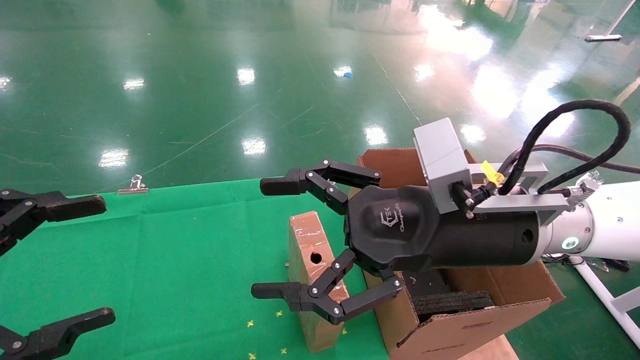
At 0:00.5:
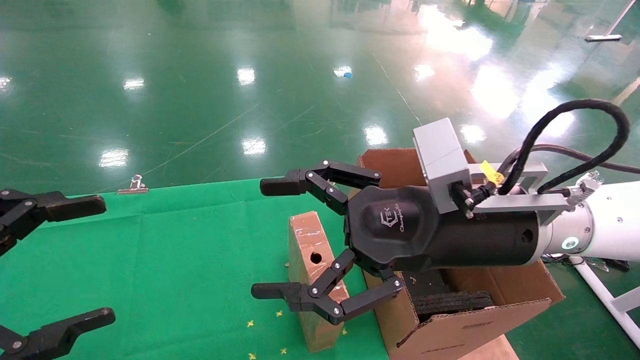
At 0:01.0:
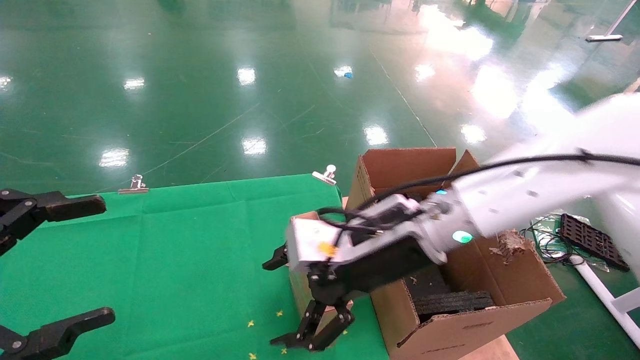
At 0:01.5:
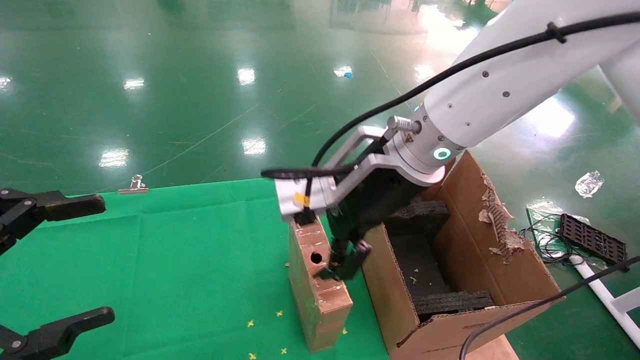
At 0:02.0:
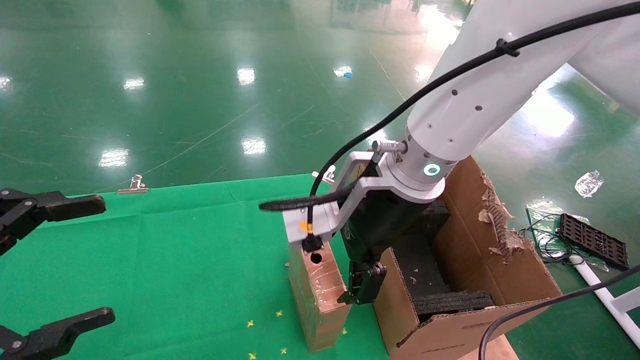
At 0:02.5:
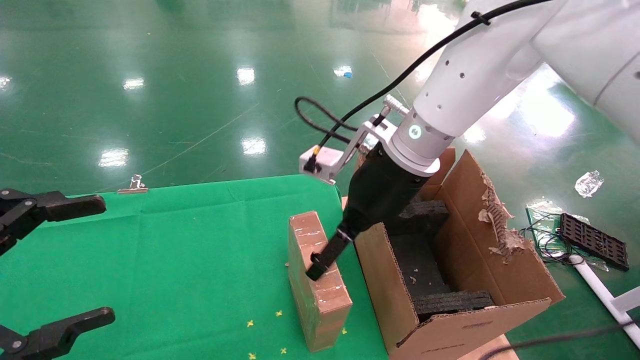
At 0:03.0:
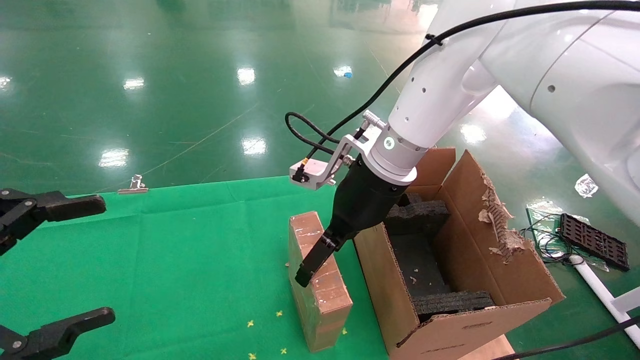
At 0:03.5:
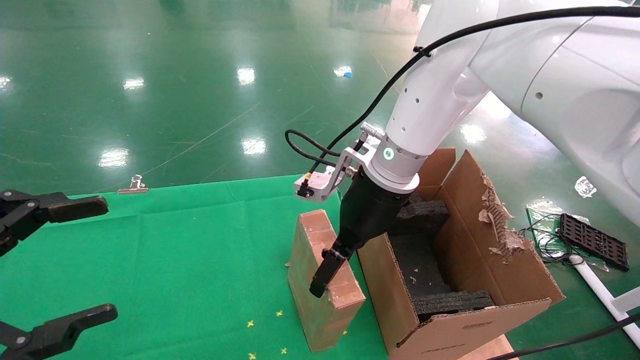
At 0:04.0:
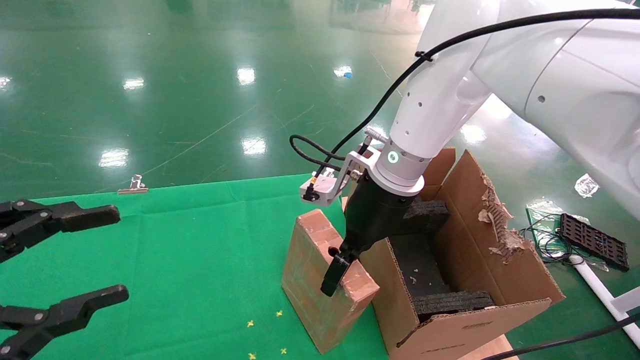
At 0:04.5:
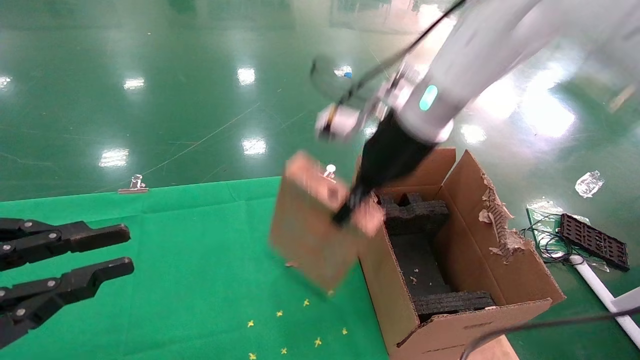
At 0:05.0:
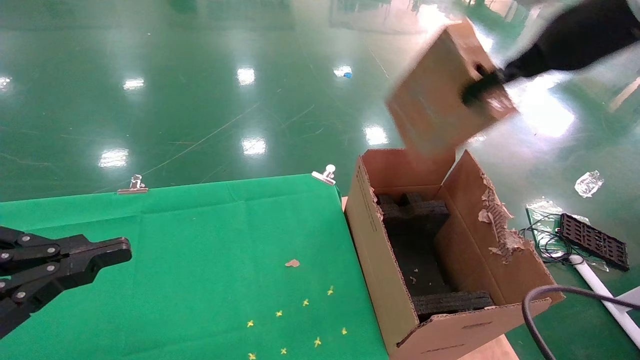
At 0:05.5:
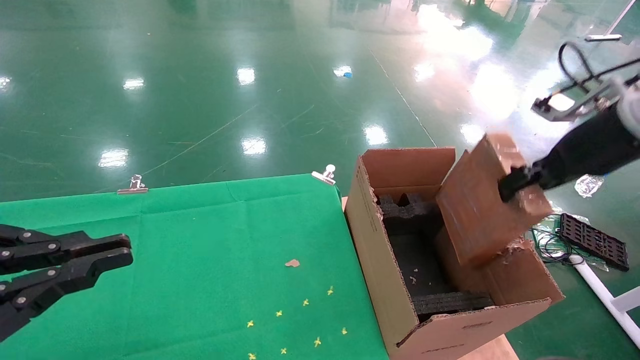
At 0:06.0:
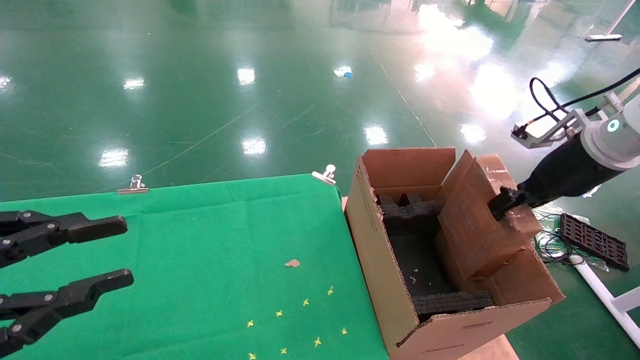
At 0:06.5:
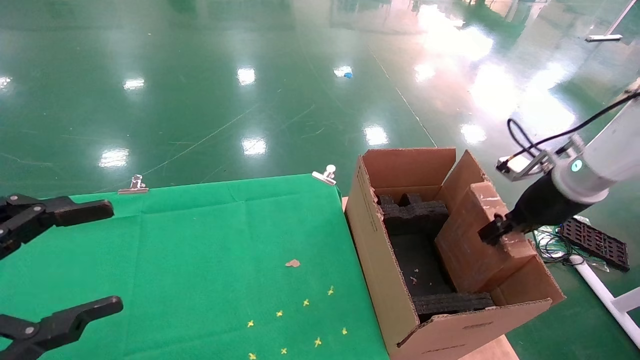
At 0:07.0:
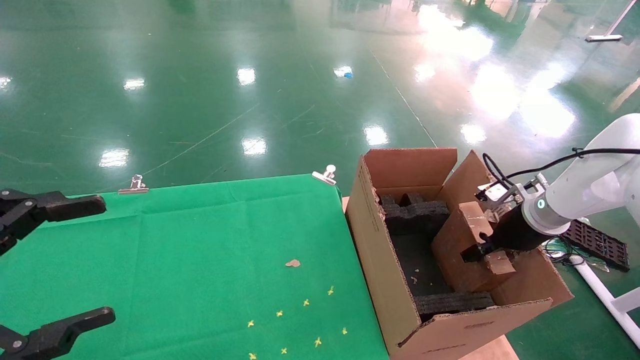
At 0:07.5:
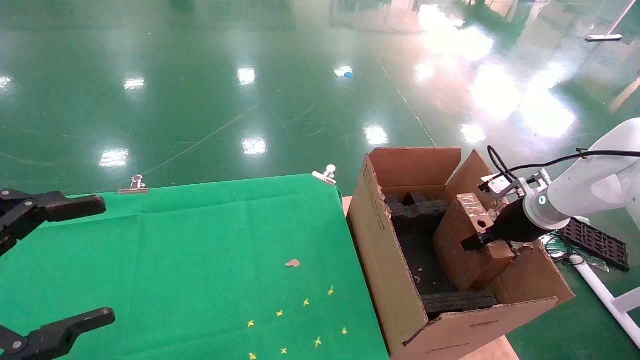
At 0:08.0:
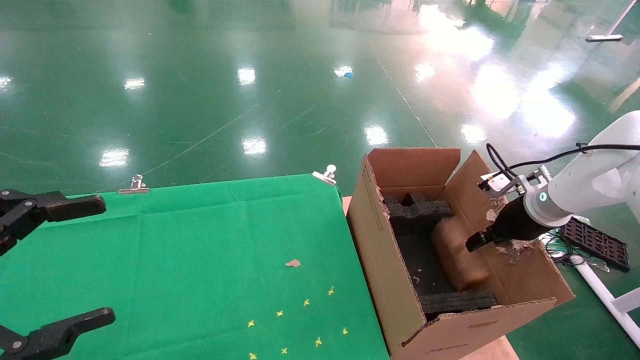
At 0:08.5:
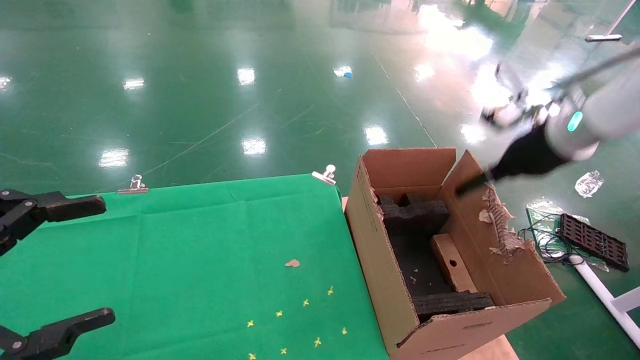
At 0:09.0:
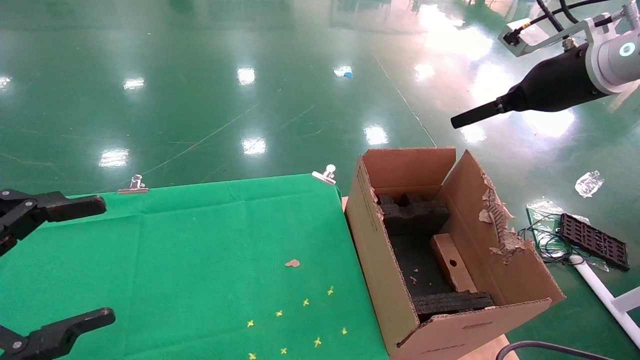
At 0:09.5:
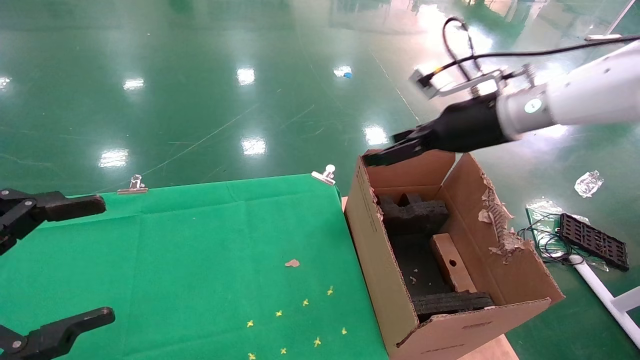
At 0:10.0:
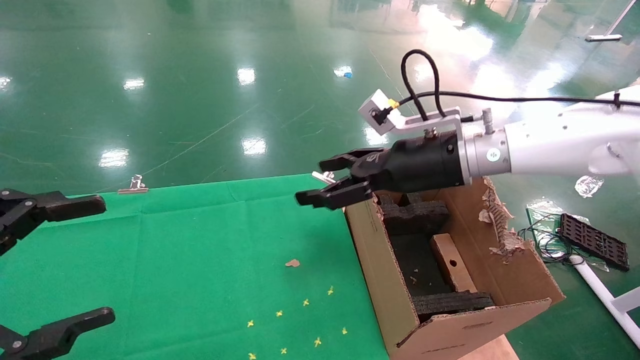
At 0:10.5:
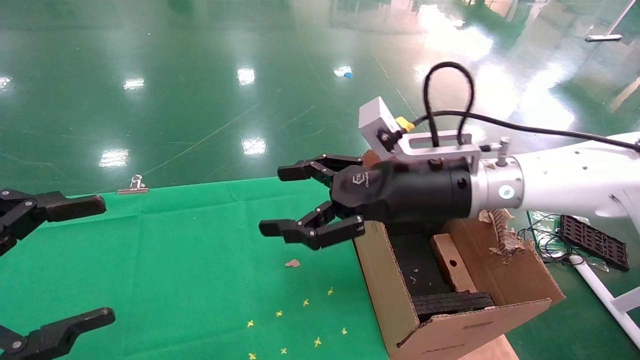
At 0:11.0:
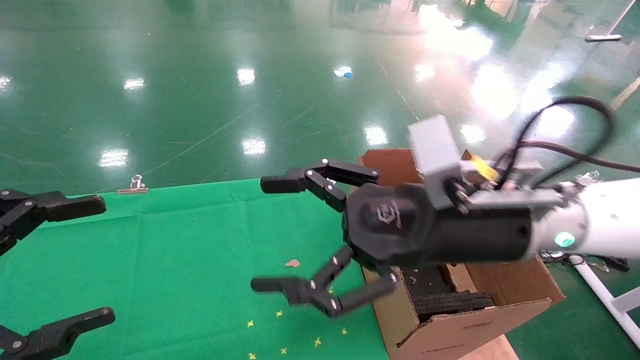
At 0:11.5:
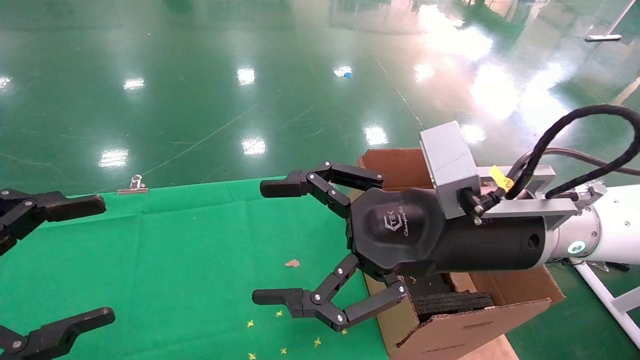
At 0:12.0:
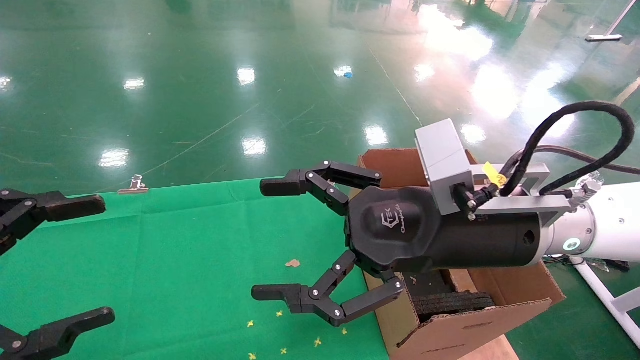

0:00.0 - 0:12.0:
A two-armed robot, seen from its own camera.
Task of the whole recording: using a robotic arm to pick up a cardboard box and palace it the carton.
Step, 0:01.0 - 0:04.5: Pick up the mouse and the power cord paper box.
Step, 0:05.0 - 0:08.0: Place the mouse and the power cord paper box into the container.
0:00.0 - 0:02.0: The right gripper is displaced forward and to the left by approximately 10 cm.
0:02.0 - 0:04.0: The right gripper heads forward, covering about 5 cm, and closes up.
0:04.0 - 0:06.0: The left gripper closes up. The right gripper travels to the right by some 30 cm, and closes its fingers.
0:06.0 - 0:08.0: The right gripper heads downward and forward, covering about 15 cm, while the left gripper opens up.
0:08.0 - 0:10.0: The right gripper heads to the left and upward, covering approximately 20 cm, and opens up.
0:10.0 - 0:12.0: The right gripper travels backward by roughly 15 cm.

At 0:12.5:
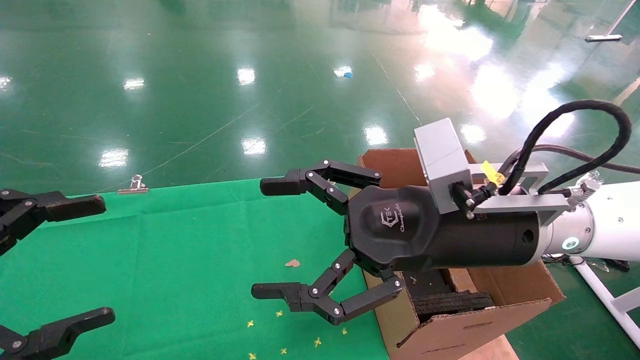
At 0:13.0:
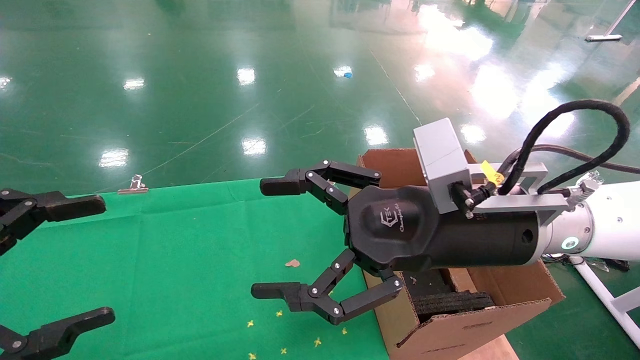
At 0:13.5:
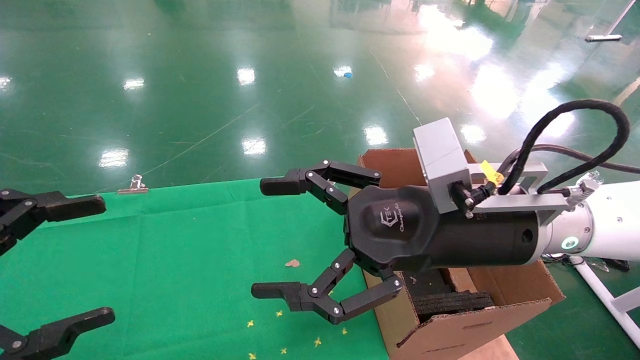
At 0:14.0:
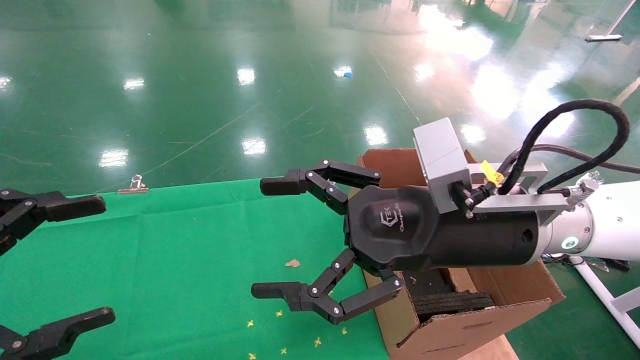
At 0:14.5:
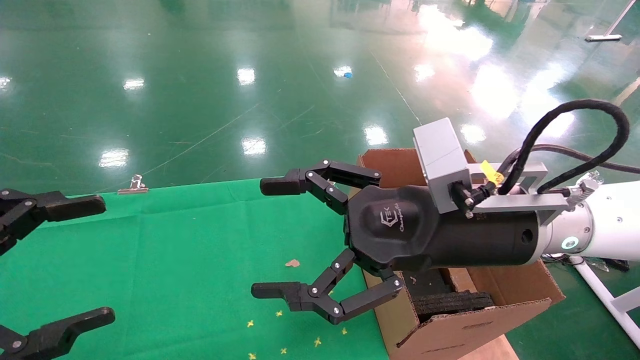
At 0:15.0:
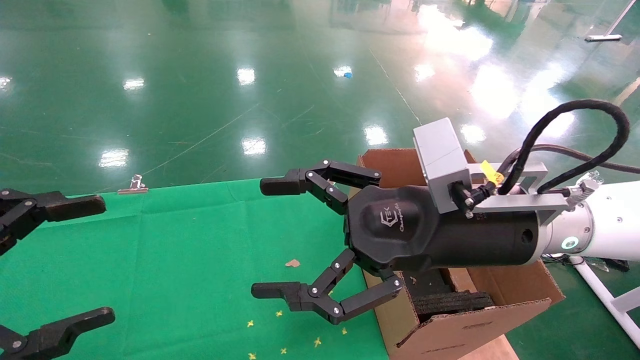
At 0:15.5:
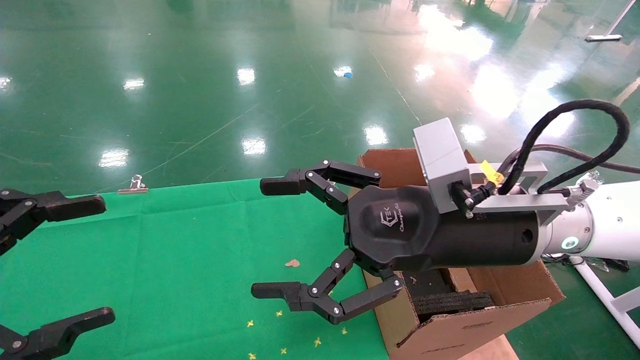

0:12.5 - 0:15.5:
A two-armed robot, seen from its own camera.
Task of the whole recording: using a robotic arm to pick up a cardboard box and palace it the carton.
0:12.5 - 0:15.5: Neither gripper changes place.
